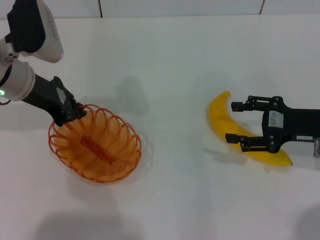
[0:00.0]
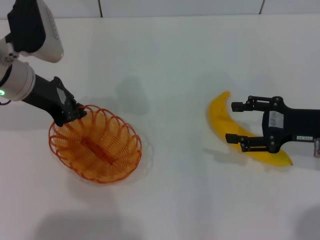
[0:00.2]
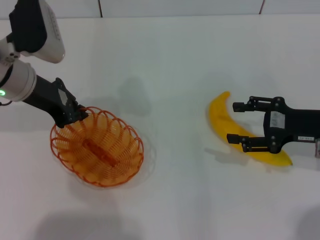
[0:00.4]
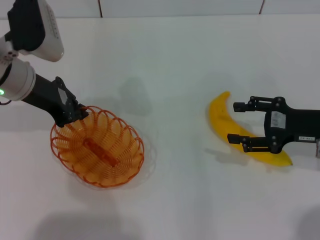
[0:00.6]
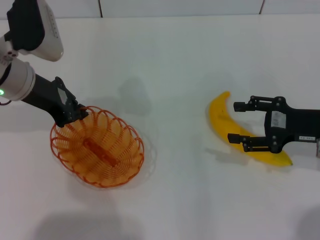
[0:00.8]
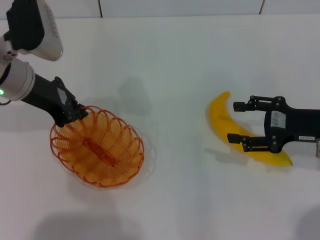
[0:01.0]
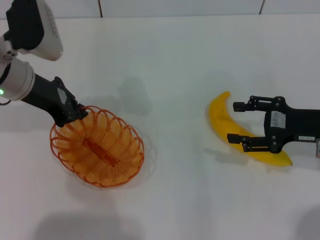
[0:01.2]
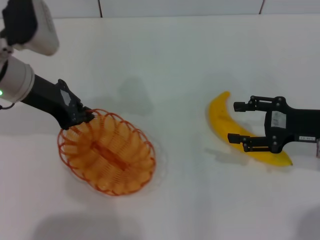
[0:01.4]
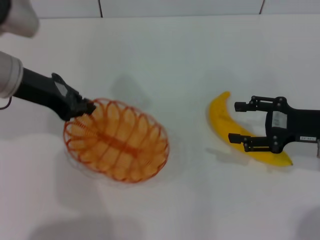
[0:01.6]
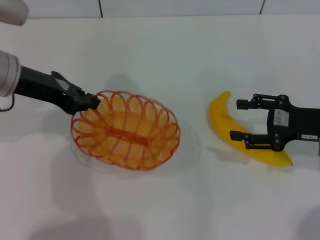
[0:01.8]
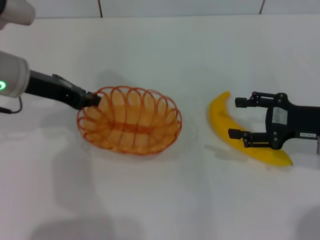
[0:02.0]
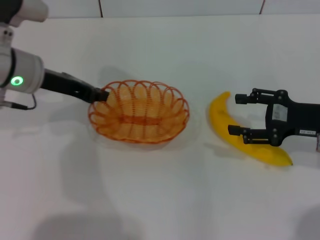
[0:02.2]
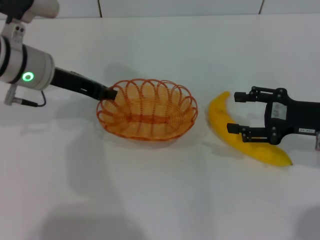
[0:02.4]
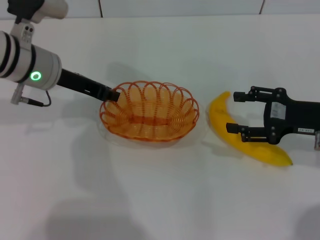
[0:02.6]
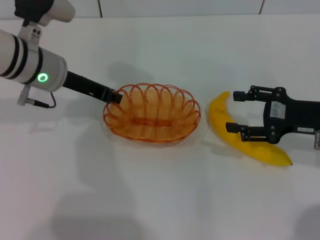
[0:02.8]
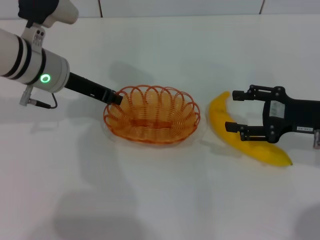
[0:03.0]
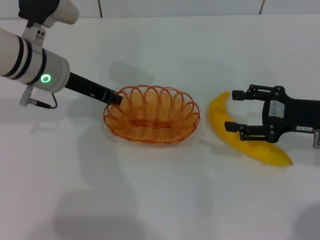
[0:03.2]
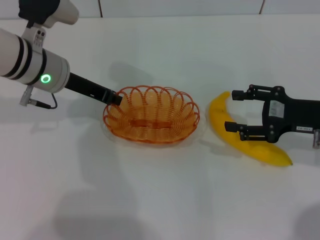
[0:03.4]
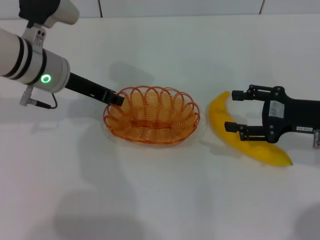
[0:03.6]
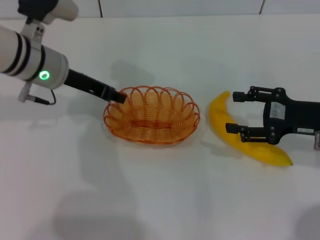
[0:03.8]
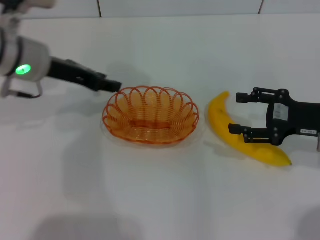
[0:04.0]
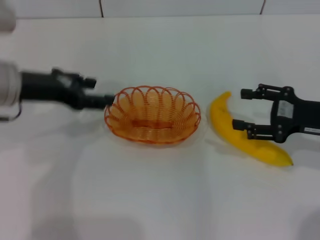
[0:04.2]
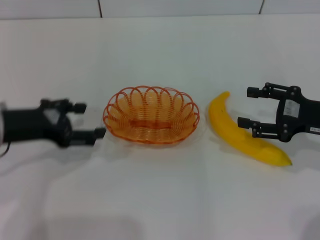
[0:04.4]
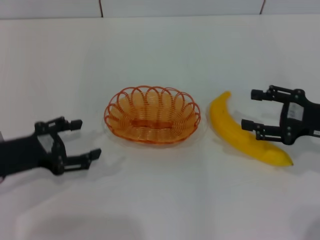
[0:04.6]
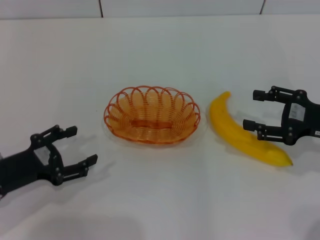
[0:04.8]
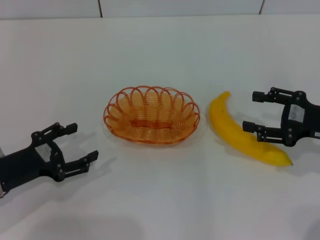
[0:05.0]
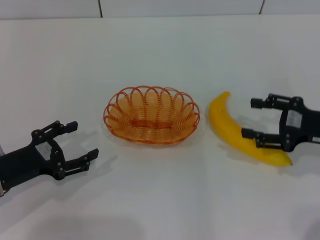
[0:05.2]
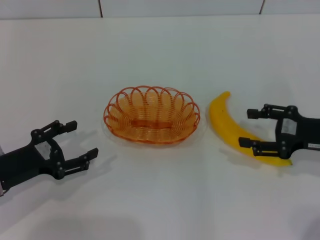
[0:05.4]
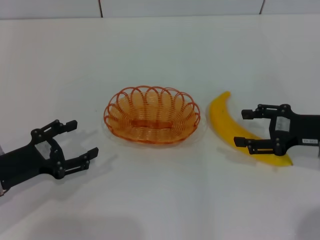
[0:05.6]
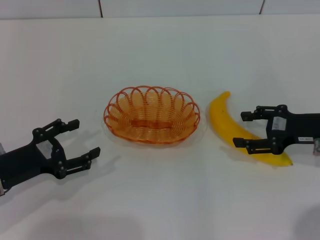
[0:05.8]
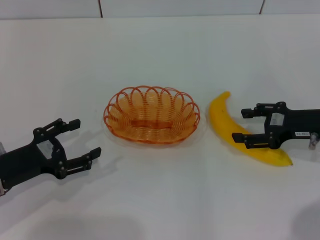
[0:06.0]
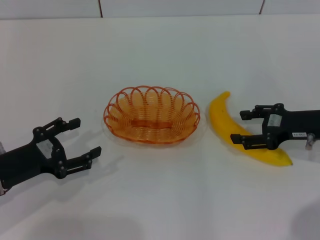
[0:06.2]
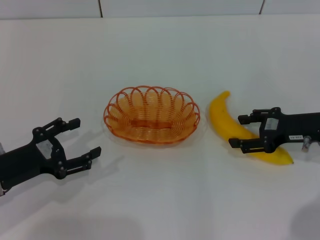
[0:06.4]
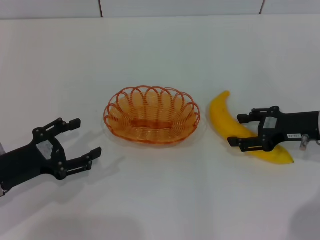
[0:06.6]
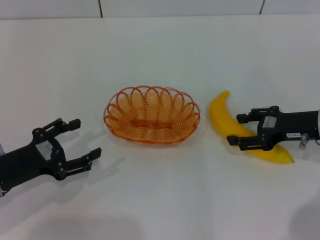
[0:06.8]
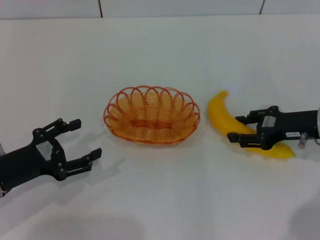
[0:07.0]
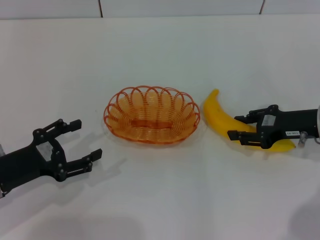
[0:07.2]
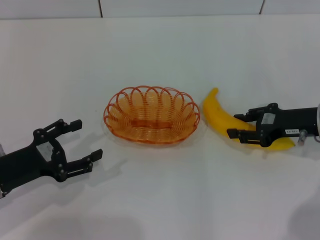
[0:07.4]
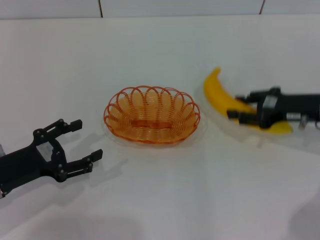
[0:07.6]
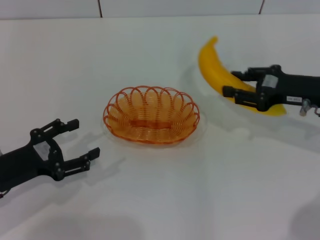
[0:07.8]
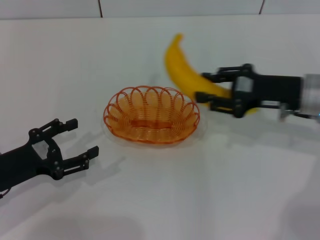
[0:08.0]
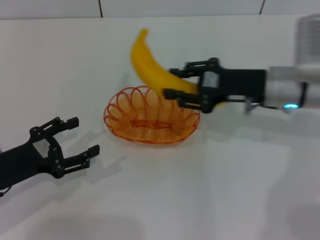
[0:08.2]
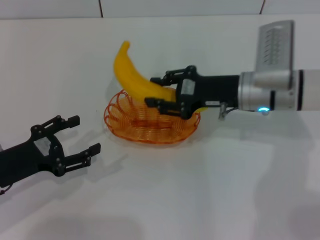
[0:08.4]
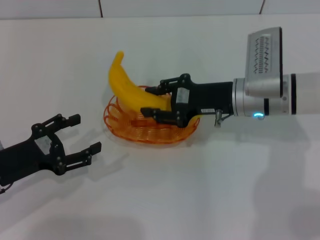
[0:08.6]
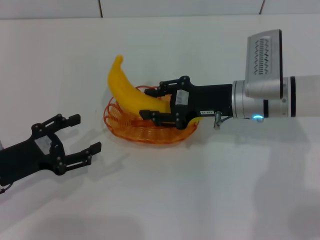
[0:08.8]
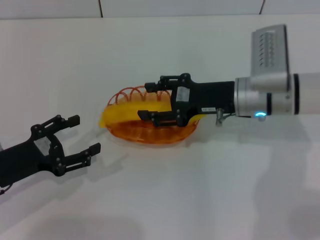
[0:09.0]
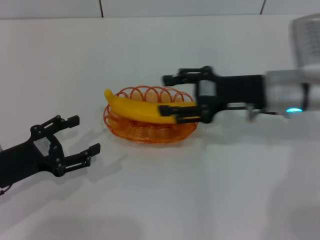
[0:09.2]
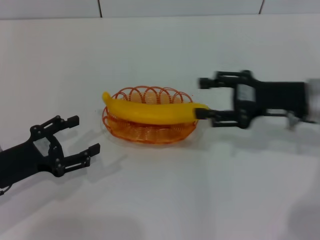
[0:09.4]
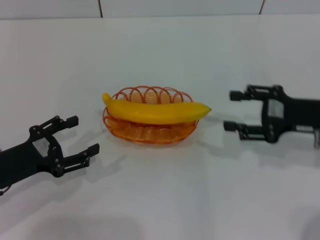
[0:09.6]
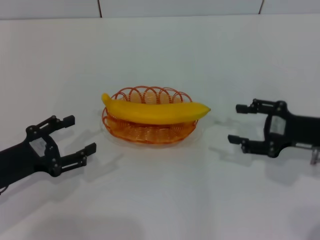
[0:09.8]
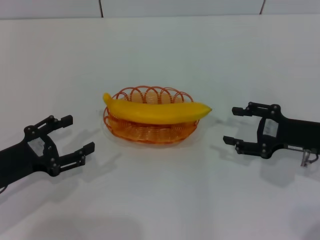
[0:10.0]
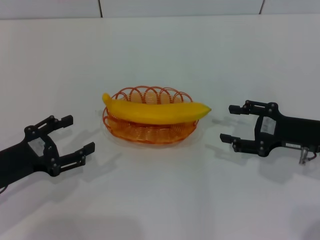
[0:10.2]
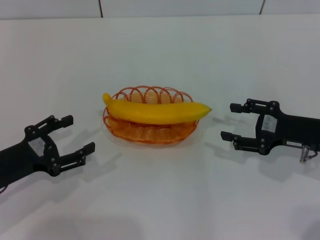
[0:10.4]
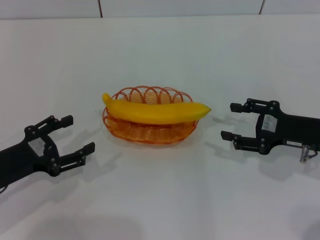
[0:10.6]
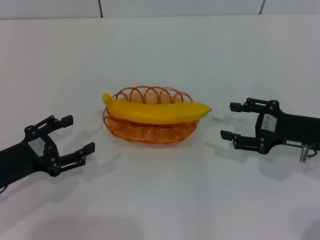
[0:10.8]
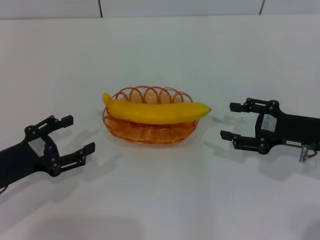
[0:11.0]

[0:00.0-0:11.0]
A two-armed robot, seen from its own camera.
Step, 0:01.4 to 0:04.0: Place the basket in the center of view with the left gripper.
Step, 0:04.2 to 0:07.6: Pick up the banana with the right gripper.
Step, 0:07.8 to 0:09.0: Place the banana into the basket with the right gripper.
0:00.0 to 0:01.6: The grippers make only small movements.
0:01.6 to 0:03.2: The left gripper shifts by about 10 cm.
0:03.2 to 0:04.8: The left gripper travels backward, to the left and downward by about 20 cm, and opens.
0:06.2 to 0:07.8: The right gripper closes up.
0:07.8 to 0:09.4: The right gripper moves about 10 cm to the left and comes back, and opens up.
0:09.4 to 0:11.0: The right gripper moves downward, about 5 cm.

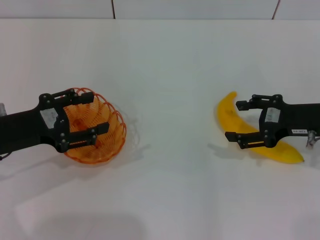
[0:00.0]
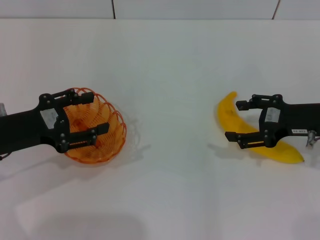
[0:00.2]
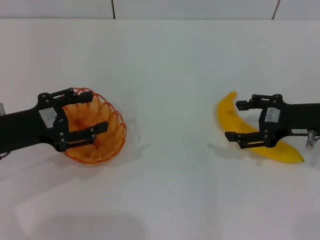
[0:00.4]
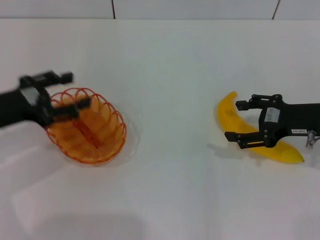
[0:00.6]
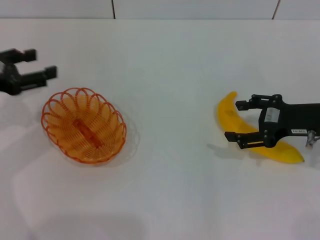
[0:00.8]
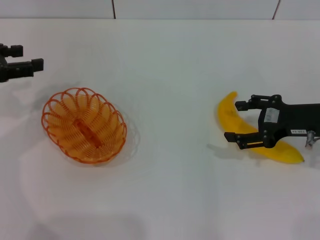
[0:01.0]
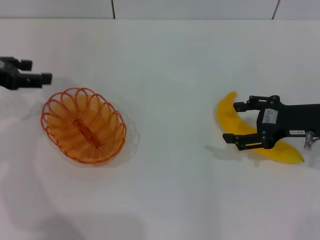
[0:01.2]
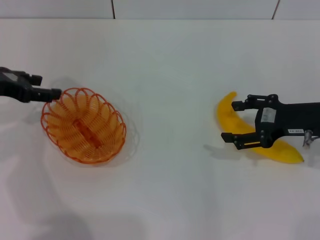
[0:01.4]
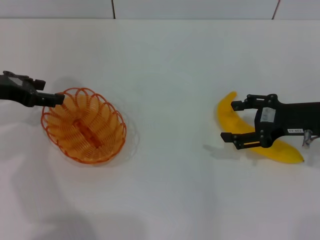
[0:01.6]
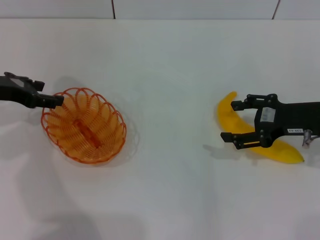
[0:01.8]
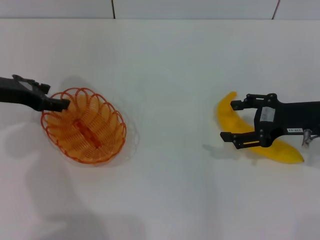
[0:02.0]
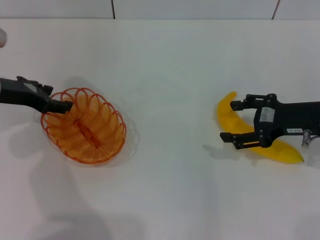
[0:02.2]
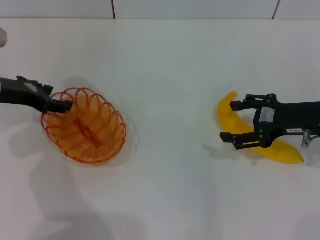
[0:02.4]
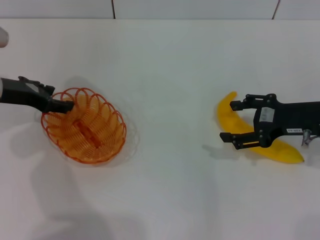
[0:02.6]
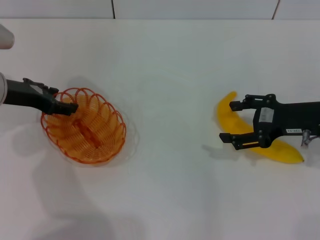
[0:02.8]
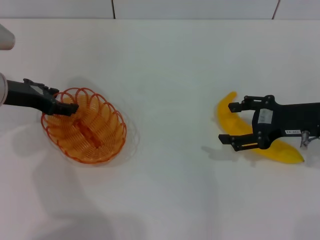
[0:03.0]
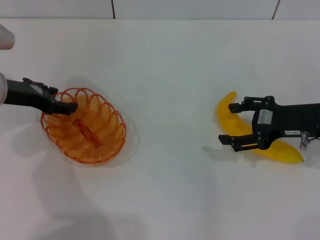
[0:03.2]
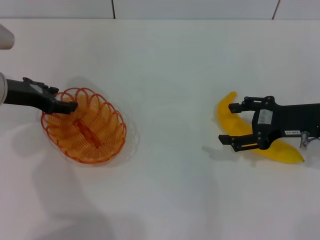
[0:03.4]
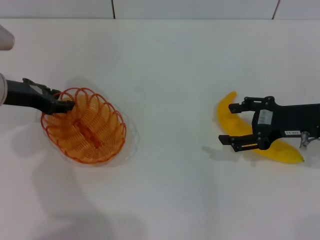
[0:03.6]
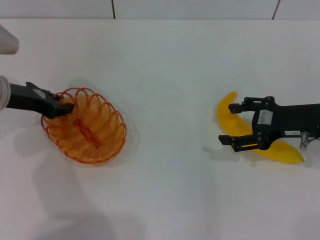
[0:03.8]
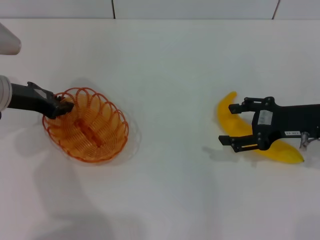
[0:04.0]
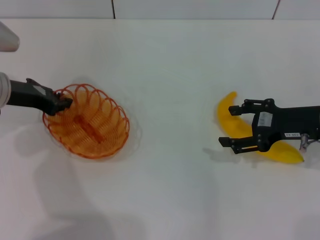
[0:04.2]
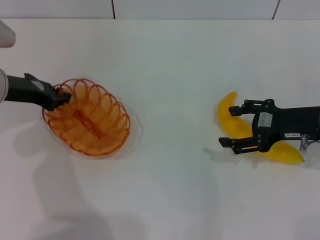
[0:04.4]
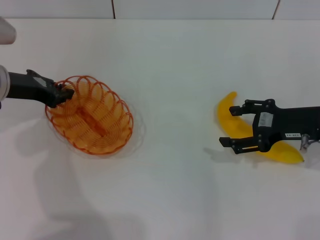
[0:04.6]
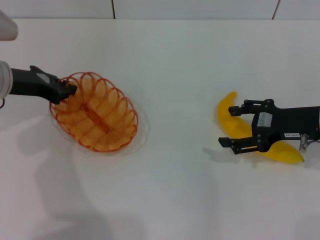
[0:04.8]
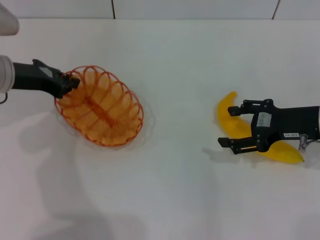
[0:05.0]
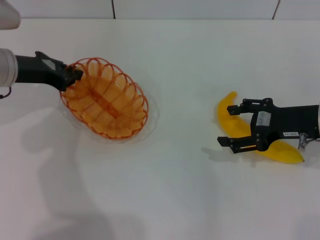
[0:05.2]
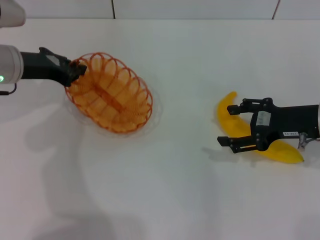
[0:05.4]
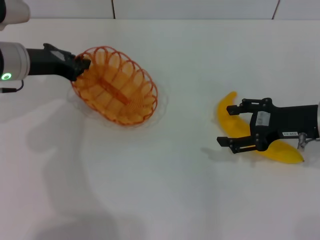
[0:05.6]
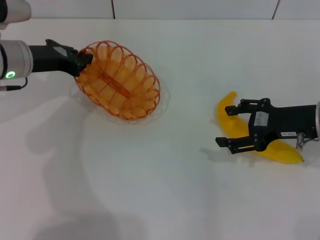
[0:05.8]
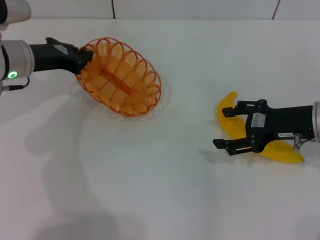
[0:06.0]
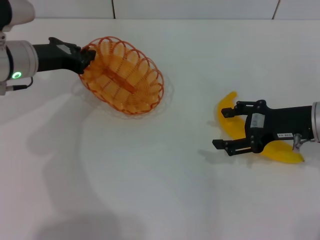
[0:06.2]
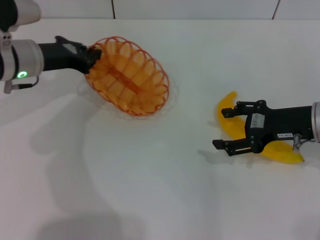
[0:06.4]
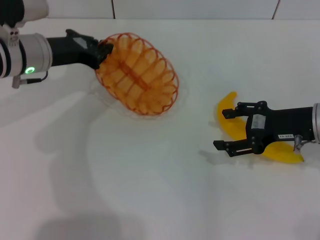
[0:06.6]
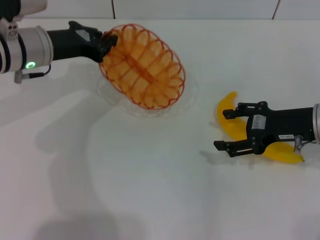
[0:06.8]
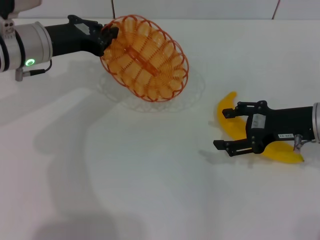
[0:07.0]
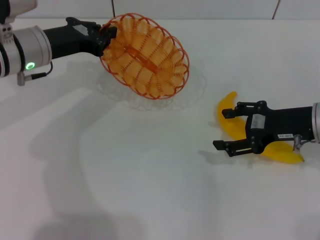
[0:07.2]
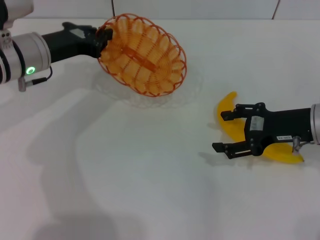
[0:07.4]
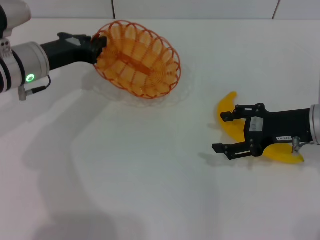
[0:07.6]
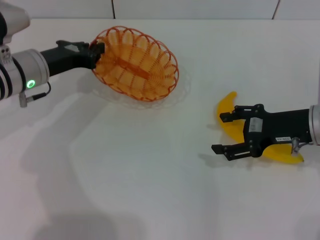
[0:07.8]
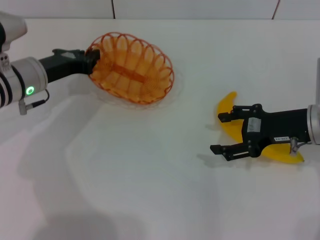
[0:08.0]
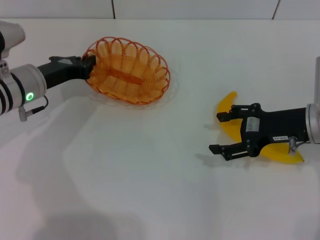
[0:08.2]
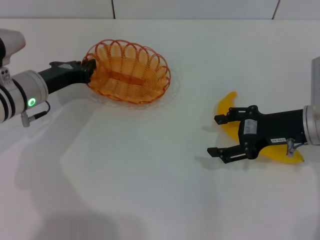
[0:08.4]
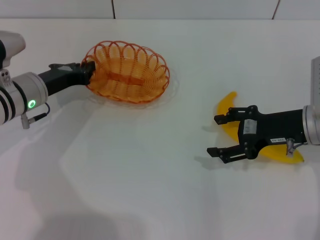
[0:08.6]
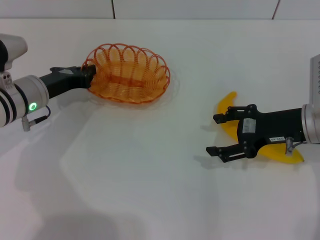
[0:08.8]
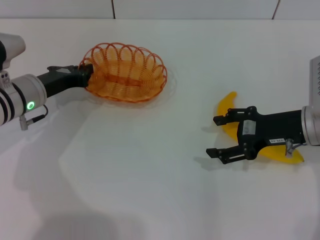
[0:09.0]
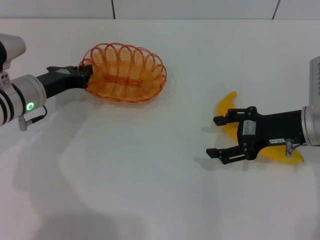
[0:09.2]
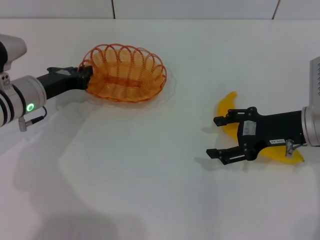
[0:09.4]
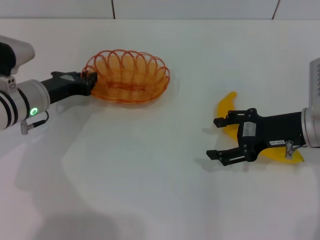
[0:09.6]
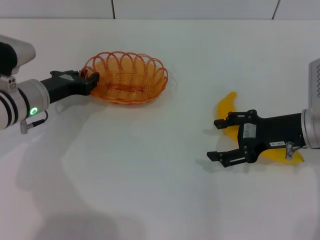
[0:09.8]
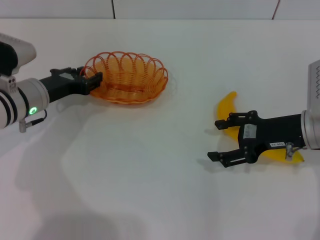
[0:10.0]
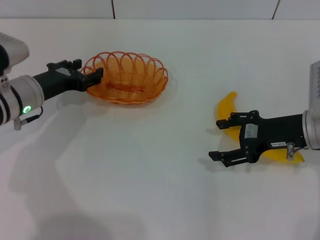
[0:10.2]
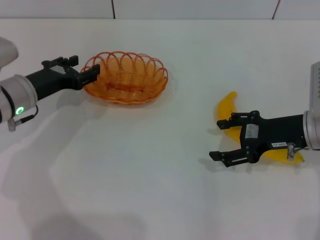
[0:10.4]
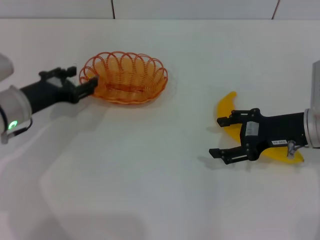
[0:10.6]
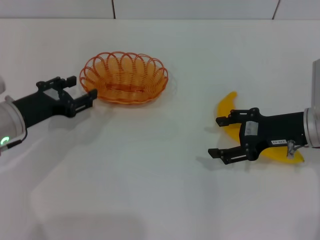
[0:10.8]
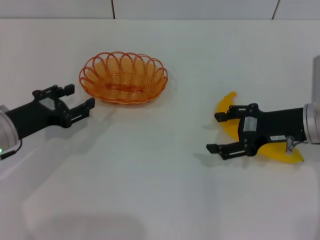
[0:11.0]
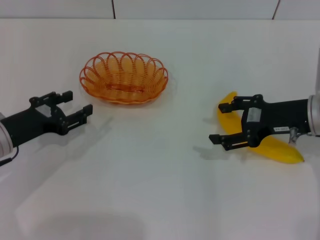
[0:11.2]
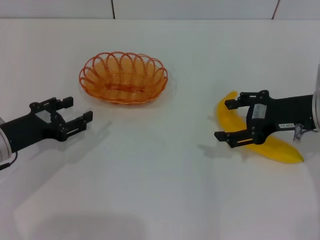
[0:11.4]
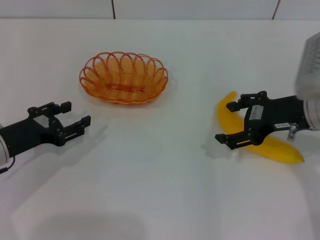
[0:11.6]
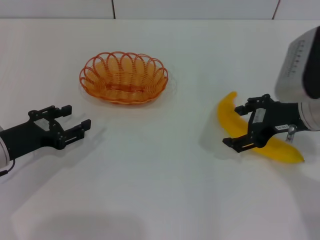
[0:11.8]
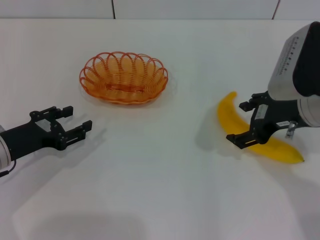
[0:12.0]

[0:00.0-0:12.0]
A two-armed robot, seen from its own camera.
Step, 0:00.0 to 0:05.8: Pick up the basket with the left gripper.
Step, 0:06.0 to 0:11.4: Place the basket in the center of view with the left gripper.
0:00.0 to 0:01.6: The left gripper travels forward by some 10 cm.
0:01.6 to 0:03.0: The grippers make only small movements.
0:03.0 to 0:04.4: The left gripper closes its fingers.
0:04.4 to 0:06.0: The grippers stay close to where they were, moving slightly.
0:06.0 to 0:07.6: The grippers stay close to where they were, moving slightly.
0:07.6 to 0:09.0: The left gripper changes place by approximately 5 cm.
0:09.0 to 0:10.4: The left gripper opens.
0:10.4 to 0:12.0: The left gripper shifts approximately 10 cm backward, while the right gripper moves upward, some 5 cm.
